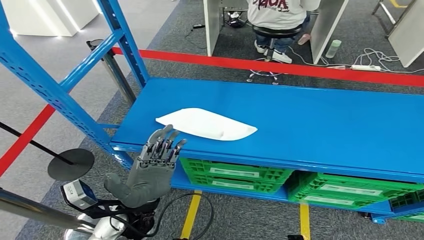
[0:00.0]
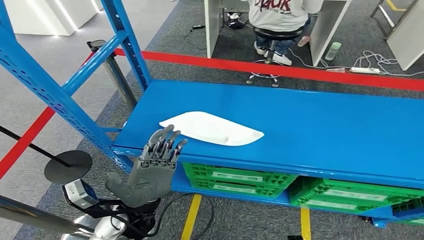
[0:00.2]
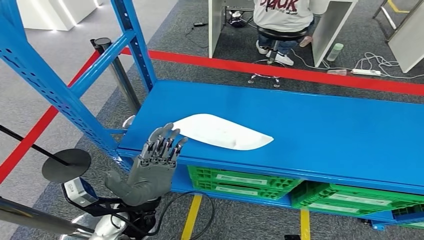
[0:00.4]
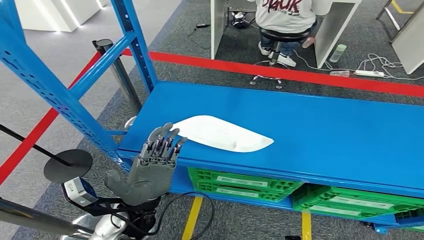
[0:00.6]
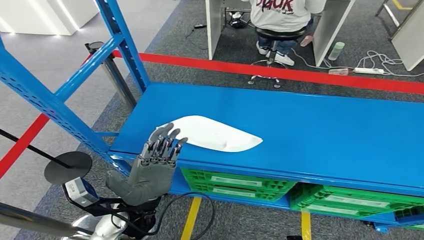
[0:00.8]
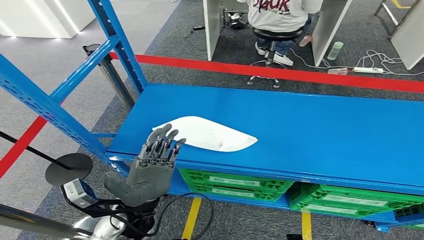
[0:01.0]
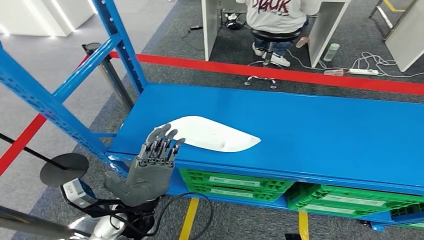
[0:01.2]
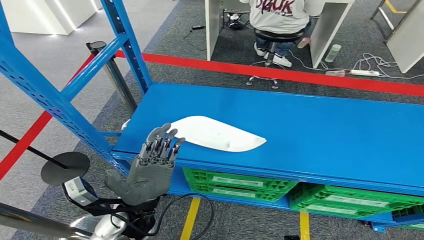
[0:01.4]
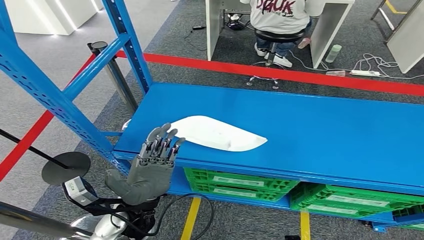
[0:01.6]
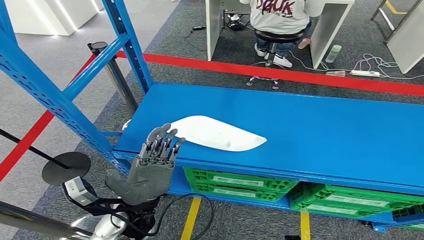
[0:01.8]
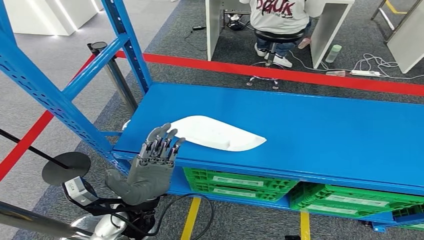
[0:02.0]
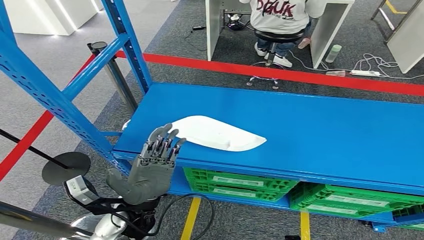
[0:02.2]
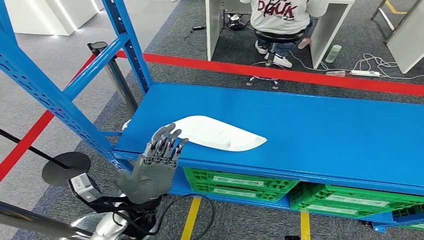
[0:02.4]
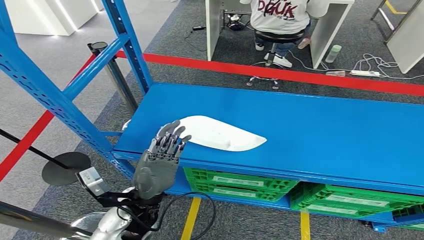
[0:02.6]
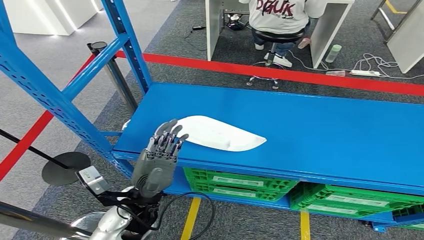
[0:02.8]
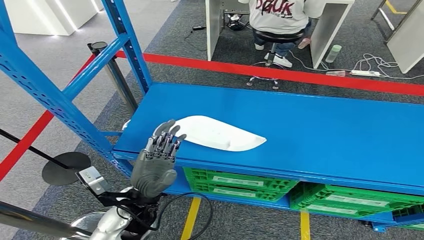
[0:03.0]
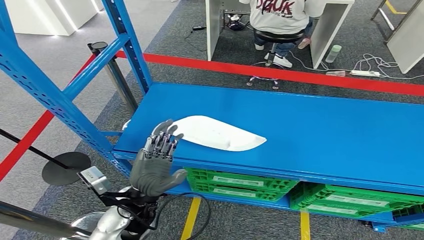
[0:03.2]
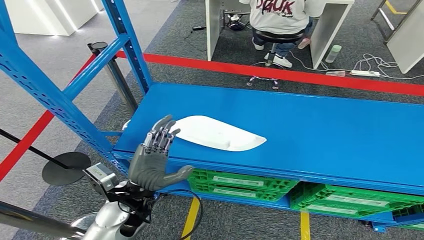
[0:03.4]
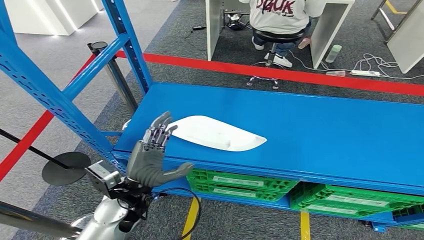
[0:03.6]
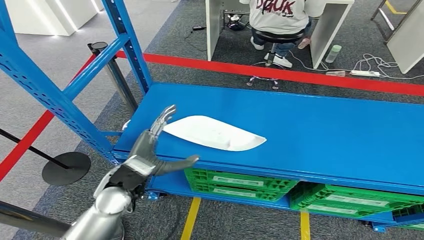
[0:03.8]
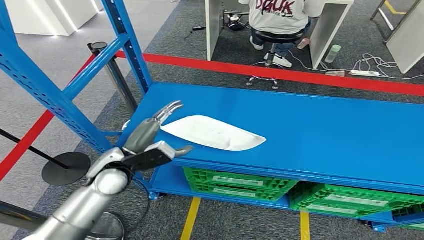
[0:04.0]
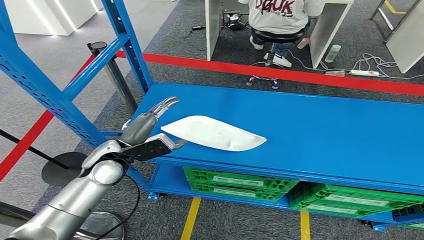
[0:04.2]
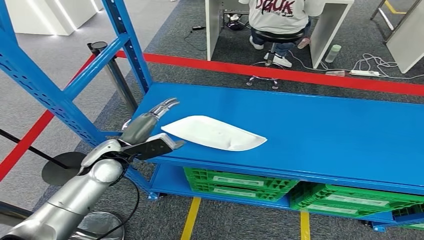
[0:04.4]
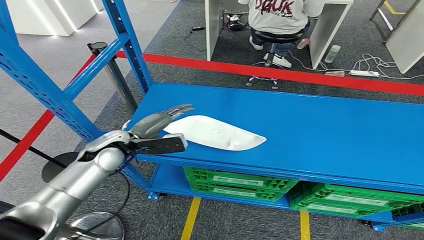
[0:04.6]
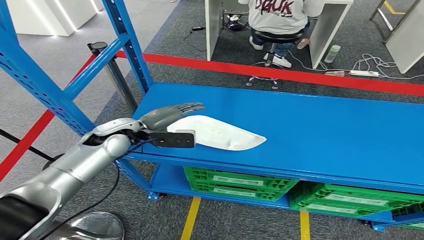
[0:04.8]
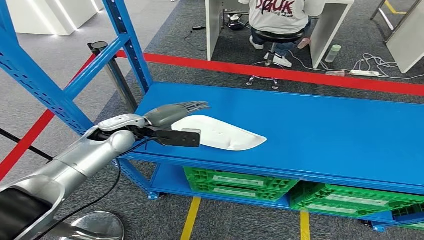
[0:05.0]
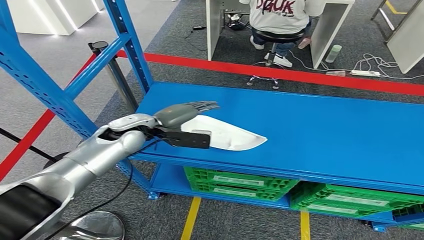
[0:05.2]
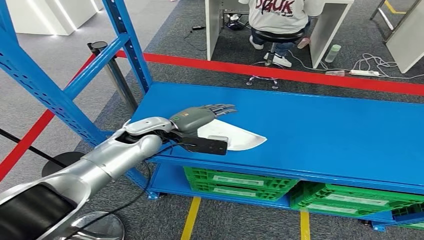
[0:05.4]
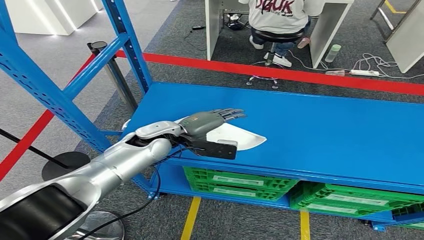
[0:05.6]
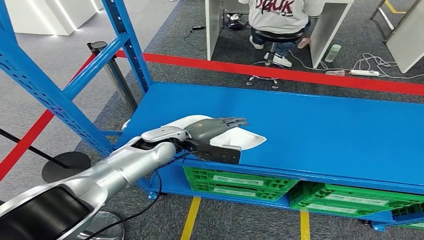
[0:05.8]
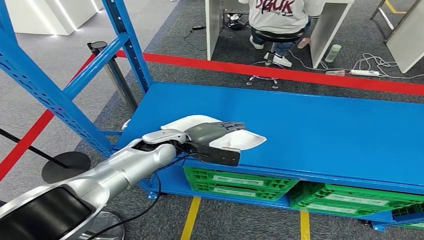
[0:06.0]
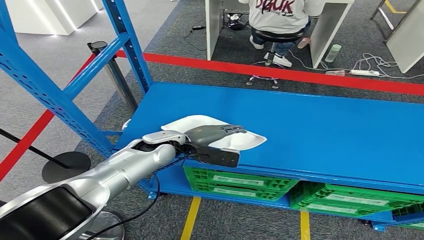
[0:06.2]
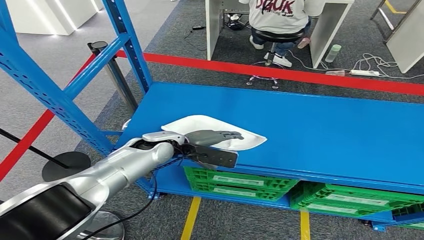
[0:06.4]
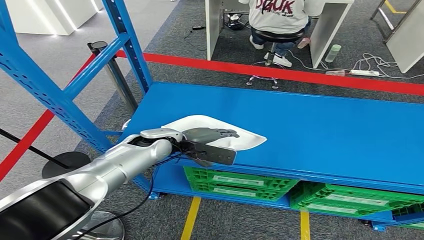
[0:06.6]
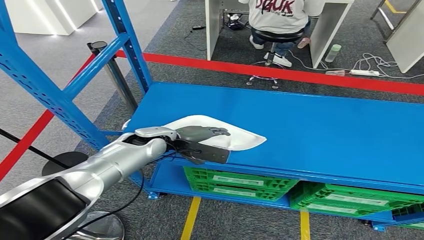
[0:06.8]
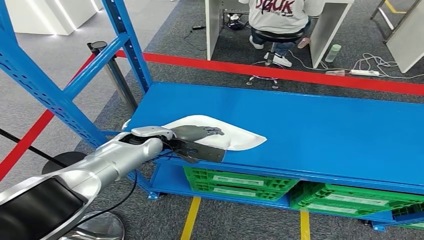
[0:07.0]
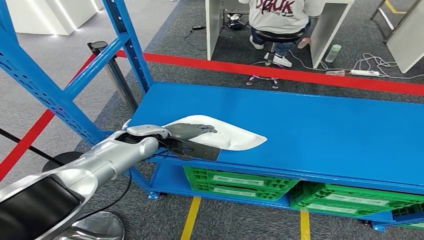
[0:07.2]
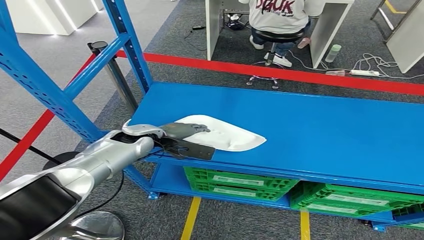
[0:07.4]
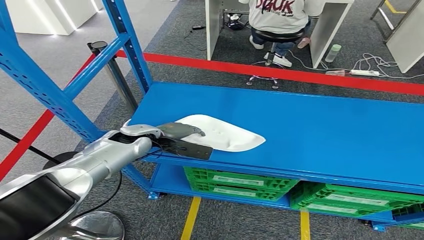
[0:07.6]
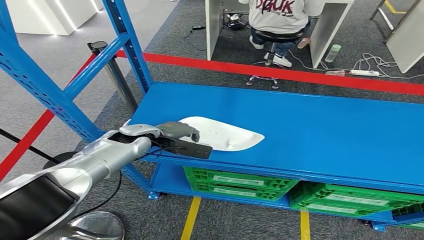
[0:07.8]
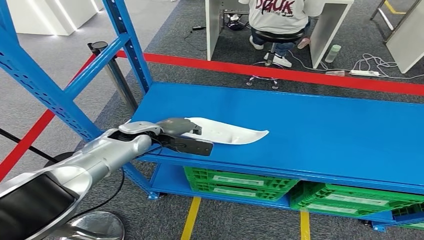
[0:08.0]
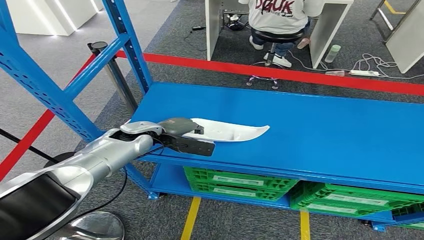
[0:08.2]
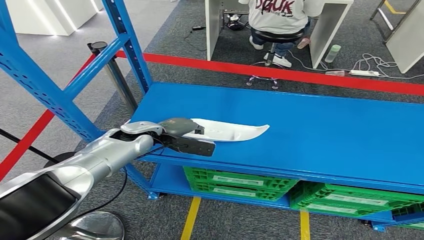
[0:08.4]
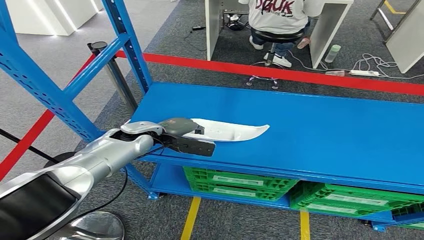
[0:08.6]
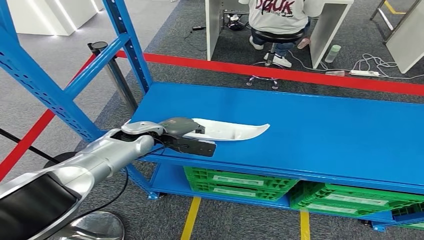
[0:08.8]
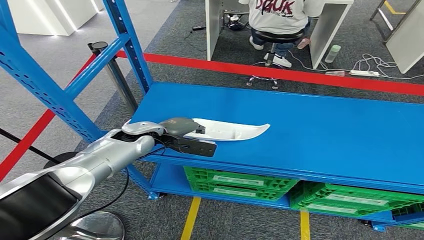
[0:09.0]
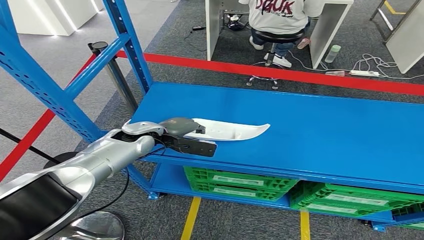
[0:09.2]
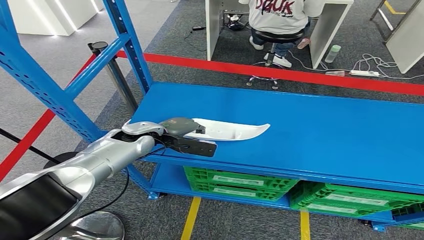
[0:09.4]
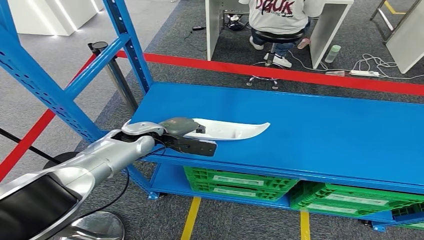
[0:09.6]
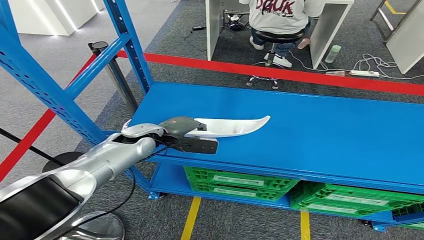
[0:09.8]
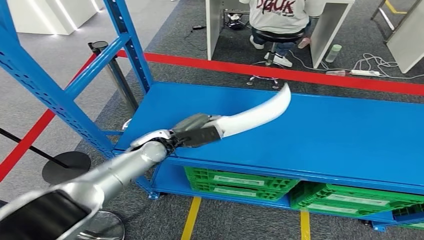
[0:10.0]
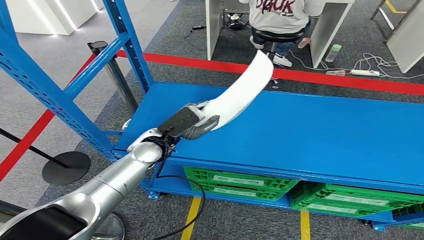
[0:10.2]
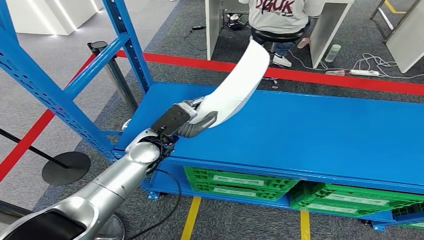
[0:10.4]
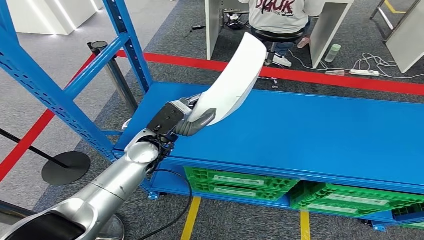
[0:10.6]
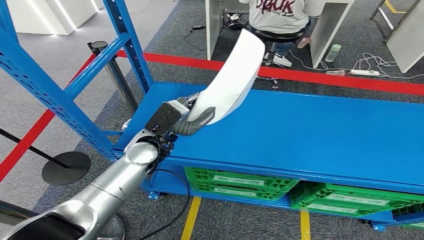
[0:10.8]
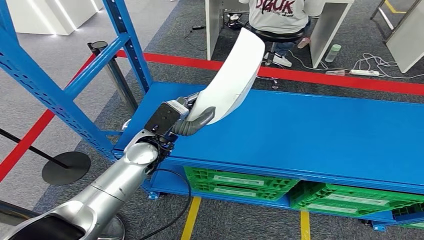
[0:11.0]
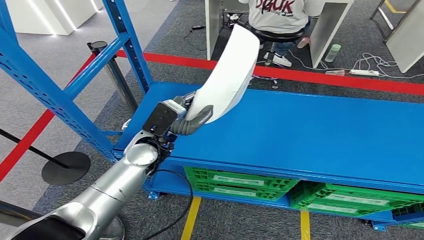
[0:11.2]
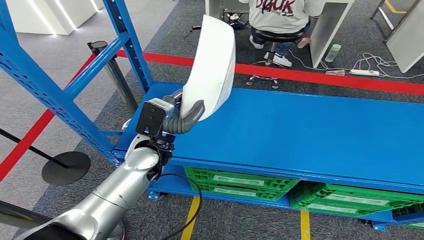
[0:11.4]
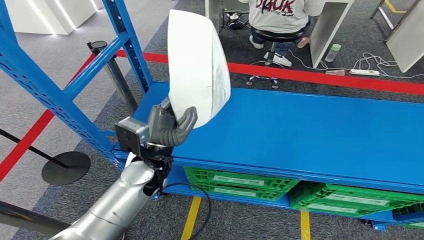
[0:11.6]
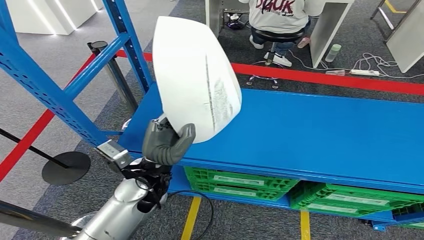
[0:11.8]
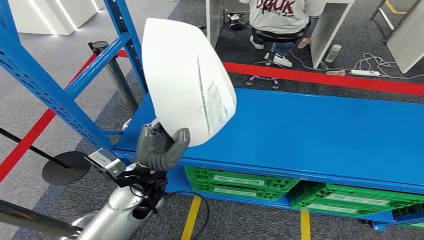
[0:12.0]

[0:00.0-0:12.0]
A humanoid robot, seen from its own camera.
0:03.0 to 0:04.4: The left hand moves forward and to the left, roughly 15 cm.
0:04.4 to 0:06.0: The left hand shifts roughly 10 cm to the right.
0:06.0 to 0:07.6: The left hand shifts about 5 cm to the left.
0:07.6 to 0:09.0: Both hands stay put.
0:09.0 to 0:10.4: The left hand moves roughly 5 cm.

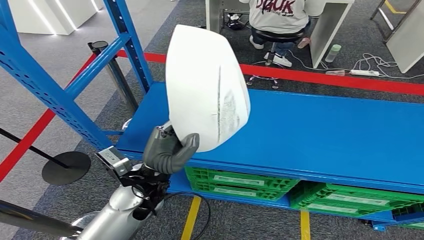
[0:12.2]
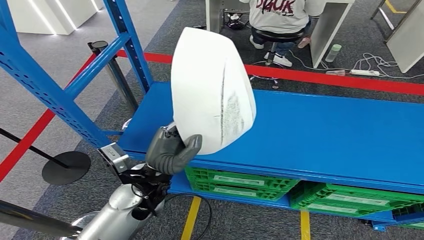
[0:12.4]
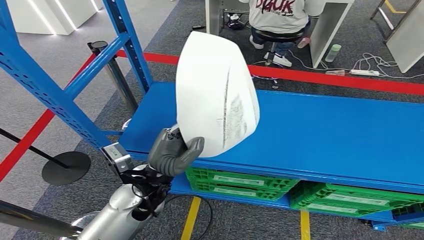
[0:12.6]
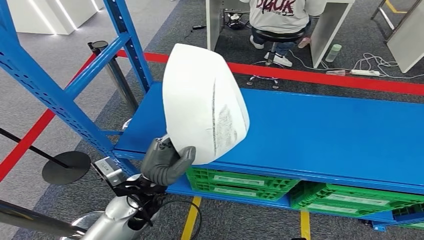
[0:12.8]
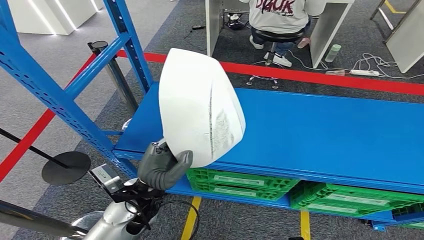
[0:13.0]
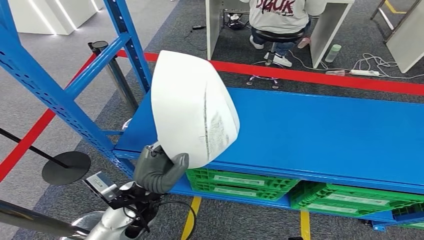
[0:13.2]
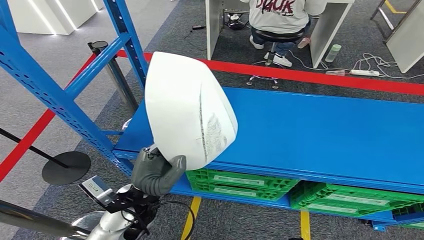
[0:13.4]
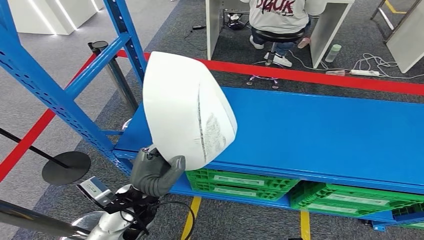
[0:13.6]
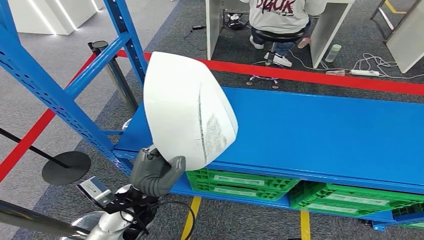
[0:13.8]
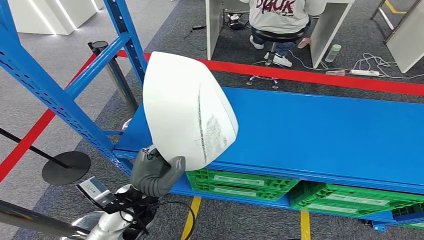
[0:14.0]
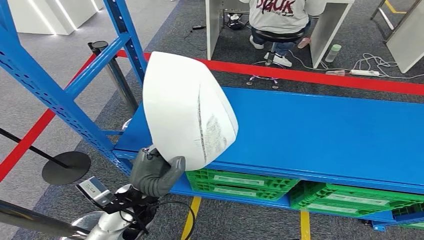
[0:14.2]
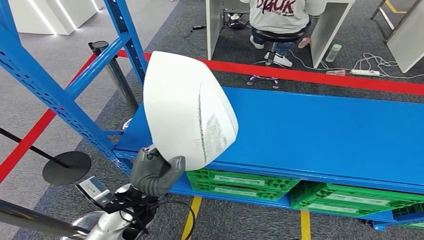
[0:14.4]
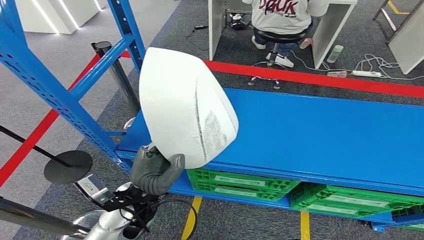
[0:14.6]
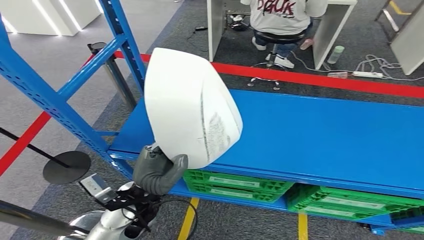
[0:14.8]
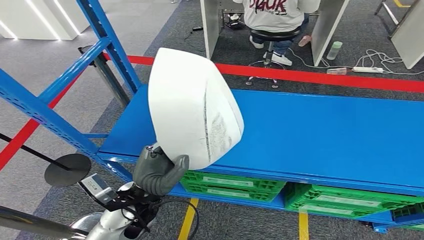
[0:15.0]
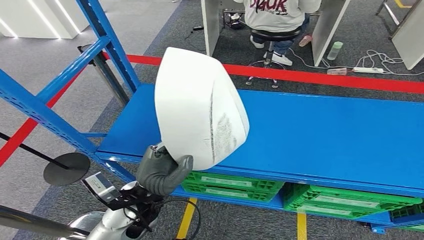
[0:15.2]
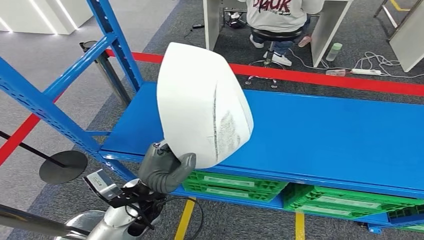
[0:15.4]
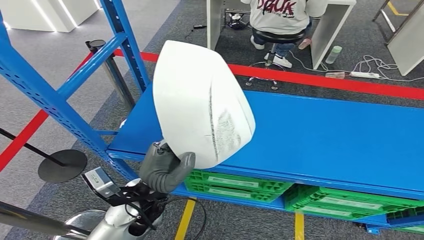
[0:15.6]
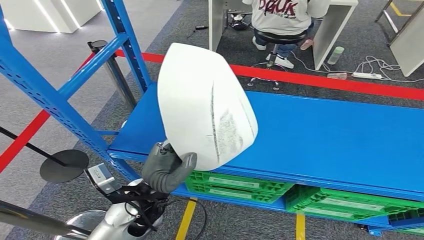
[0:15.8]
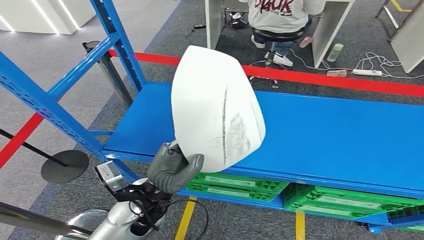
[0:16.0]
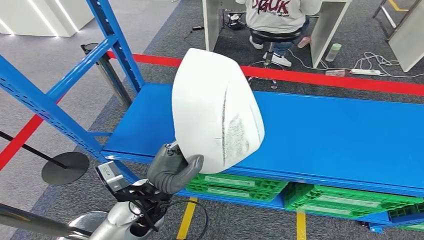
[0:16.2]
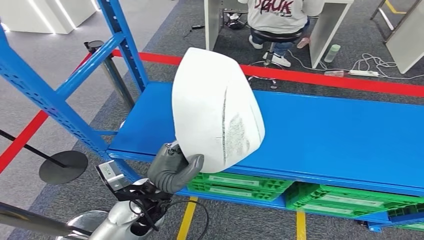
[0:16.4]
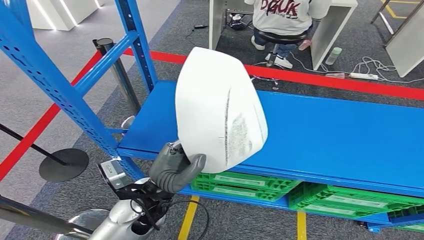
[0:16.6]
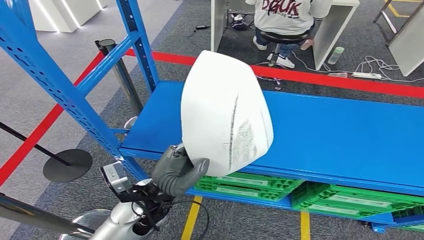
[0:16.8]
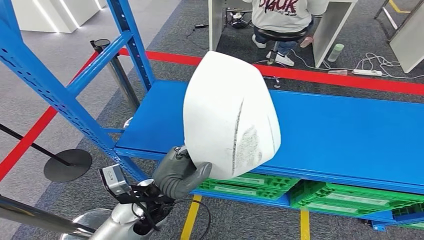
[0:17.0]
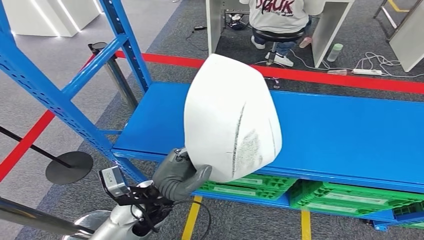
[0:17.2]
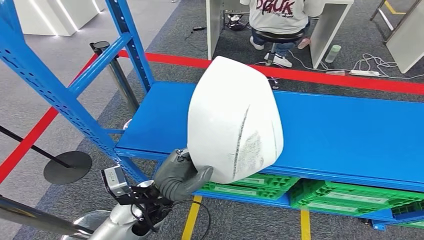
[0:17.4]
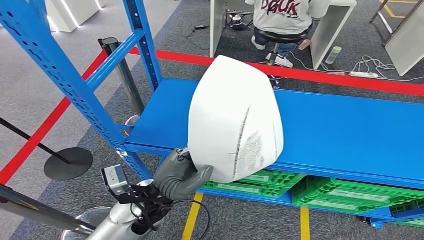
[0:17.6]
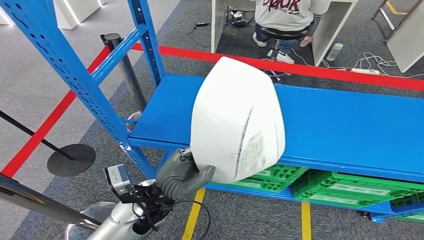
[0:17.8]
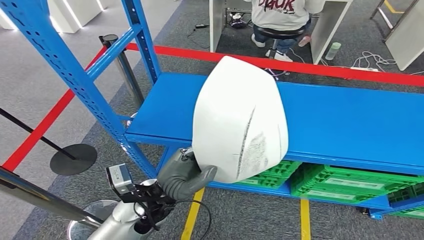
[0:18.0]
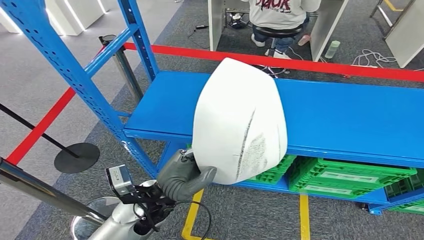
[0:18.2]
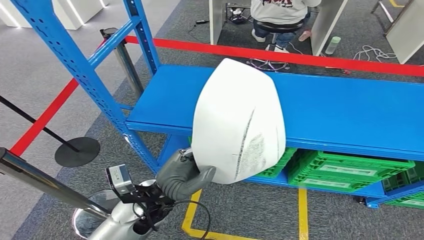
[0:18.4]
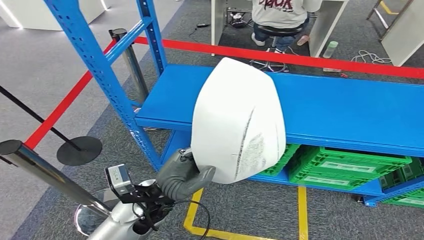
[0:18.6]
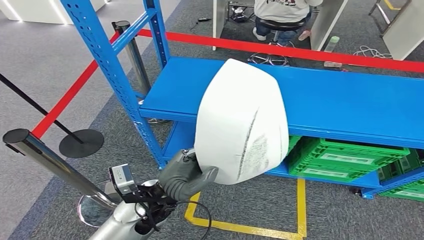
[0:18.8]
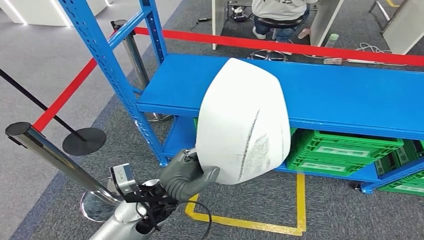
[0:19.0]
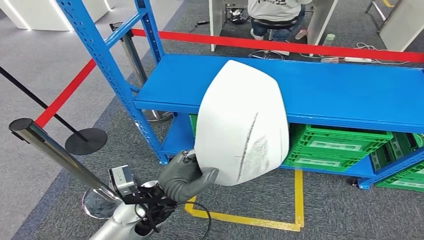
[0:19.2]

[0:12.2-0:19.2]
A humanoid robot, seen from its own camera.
Step, 0:12.2 to 0:15.0: Pick up the small parts from the shelf.
0:12.2 to 0:13.6: The left hand moves roughly 5 cm.
